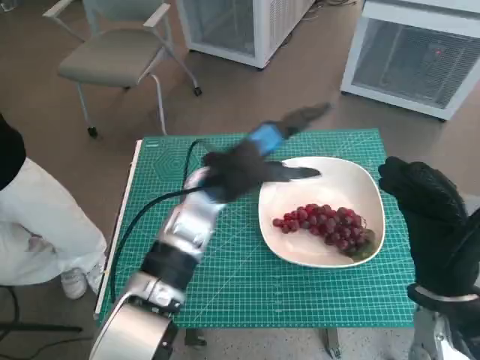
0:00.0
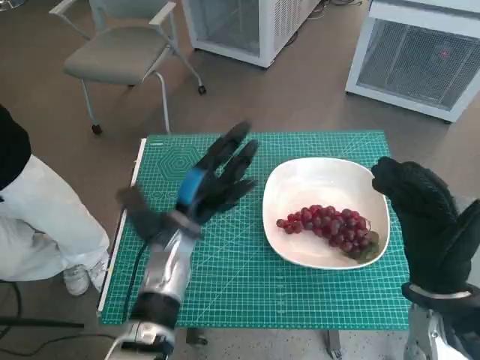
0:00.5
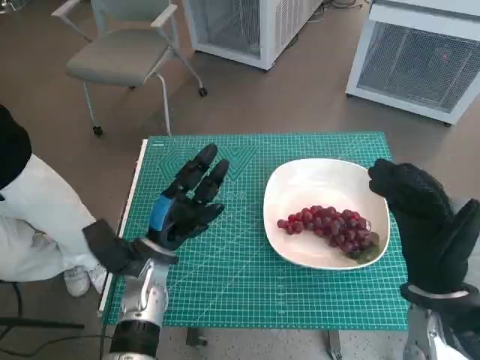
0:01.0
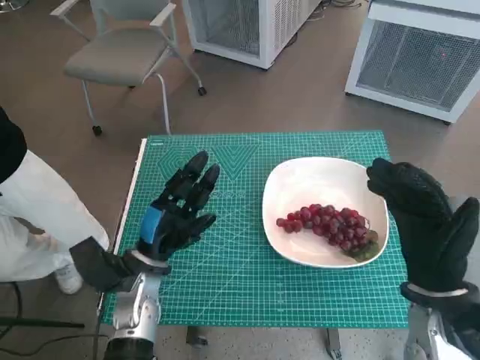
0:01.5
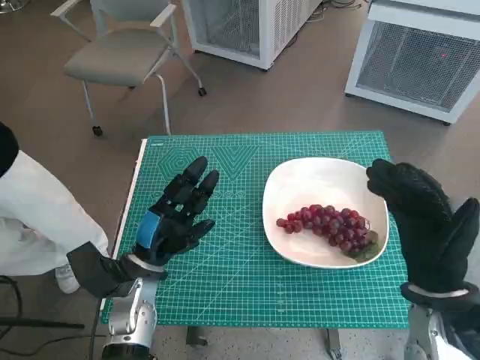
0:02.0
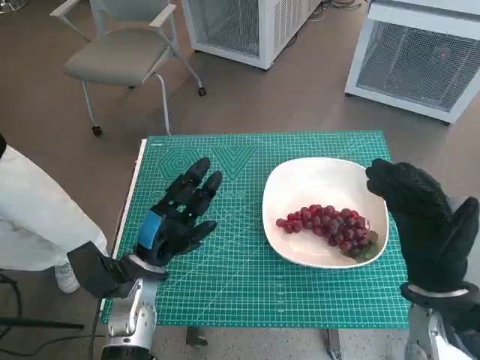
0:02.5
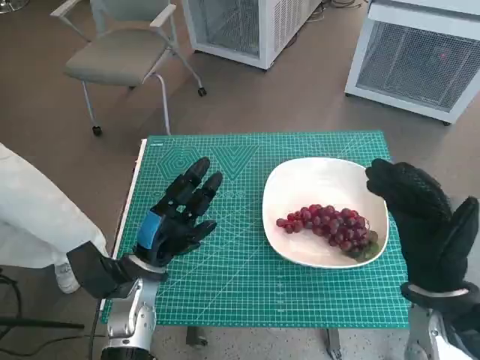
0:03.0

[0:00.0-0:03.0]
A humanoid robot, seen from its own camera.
Task of the whole recording: Pick up the grapes and put them on the plate.
0:00.0 to 0:01.5: The left hand is displaced downward, to the left and backward by approximately 20 cm.
0:01.5 to 0:03.0: Both hands stay about where they are.

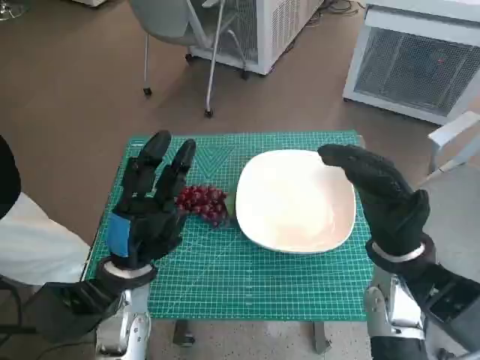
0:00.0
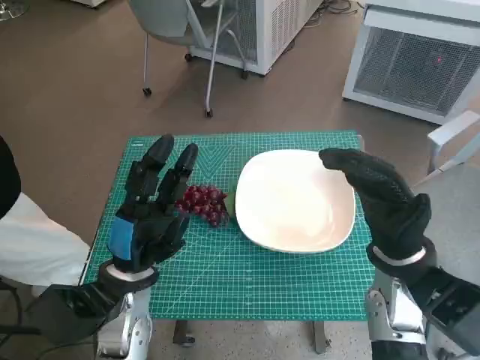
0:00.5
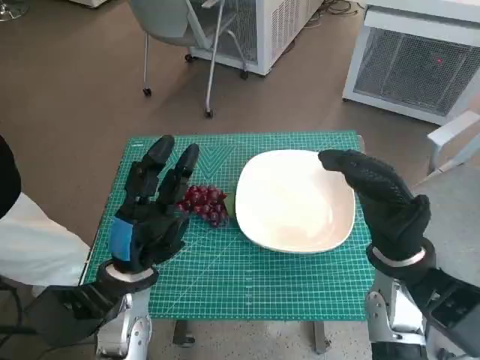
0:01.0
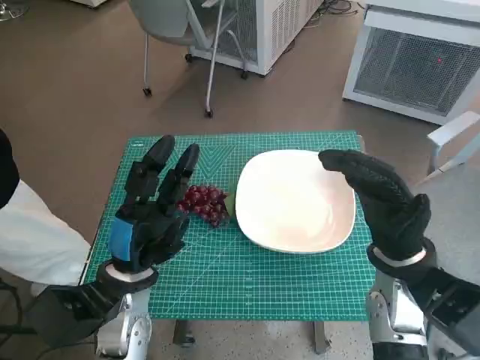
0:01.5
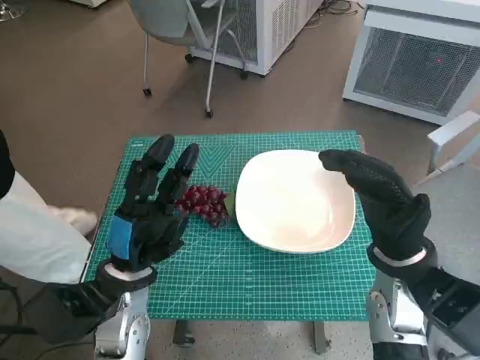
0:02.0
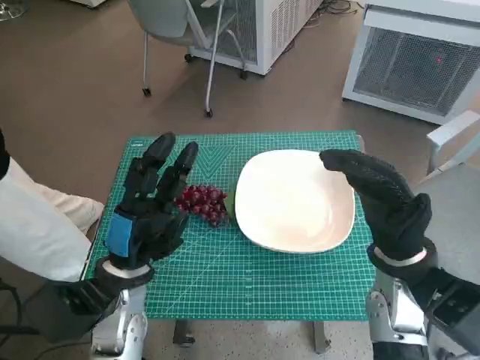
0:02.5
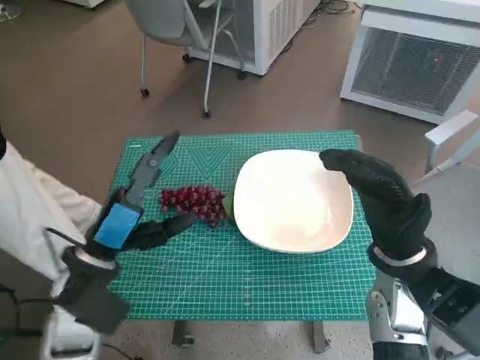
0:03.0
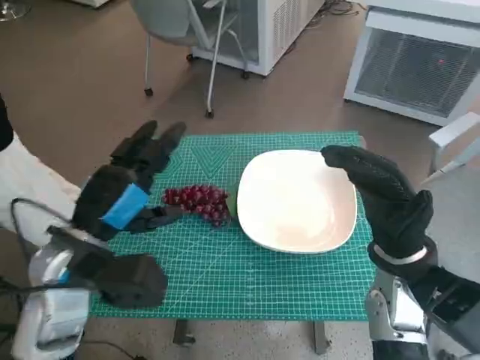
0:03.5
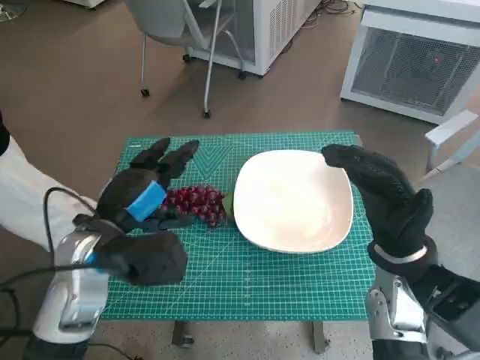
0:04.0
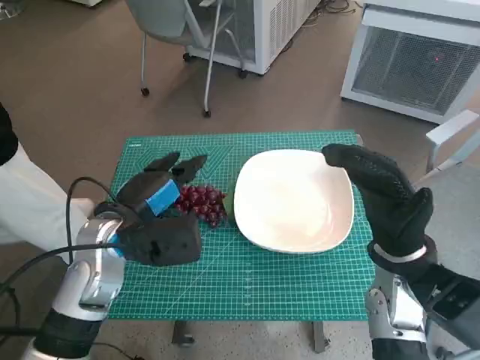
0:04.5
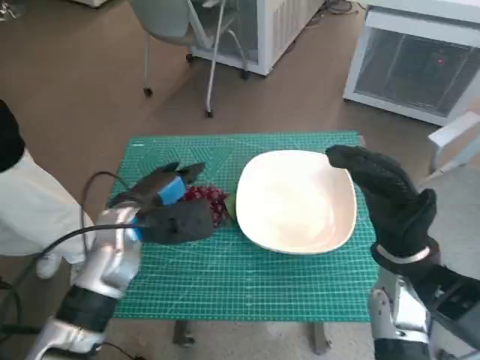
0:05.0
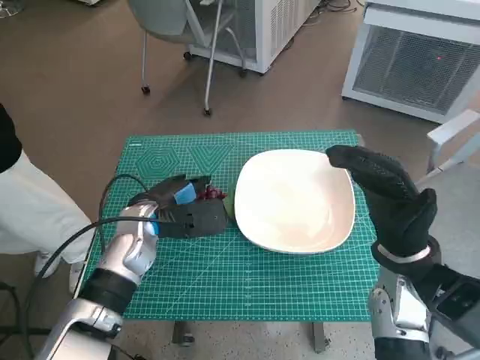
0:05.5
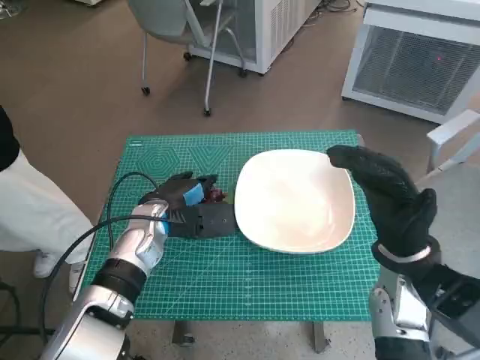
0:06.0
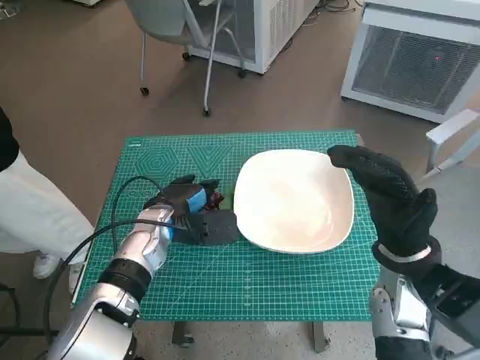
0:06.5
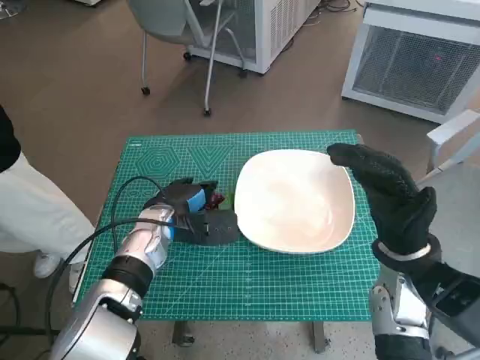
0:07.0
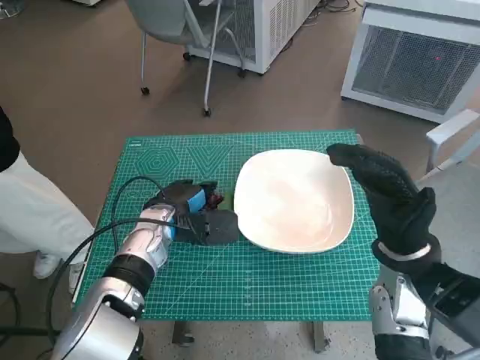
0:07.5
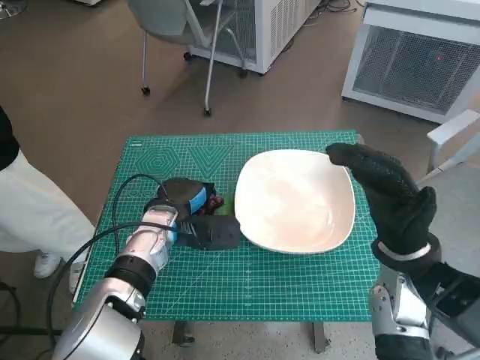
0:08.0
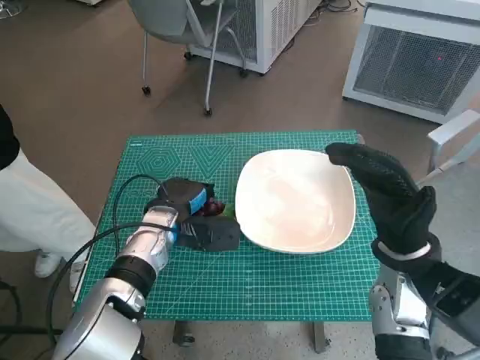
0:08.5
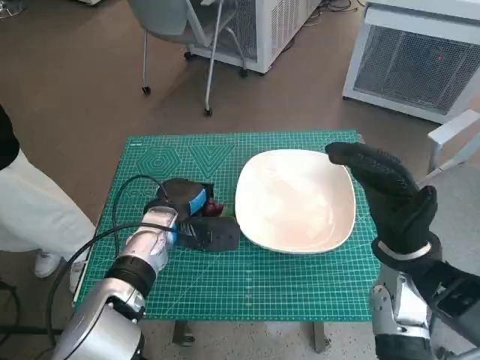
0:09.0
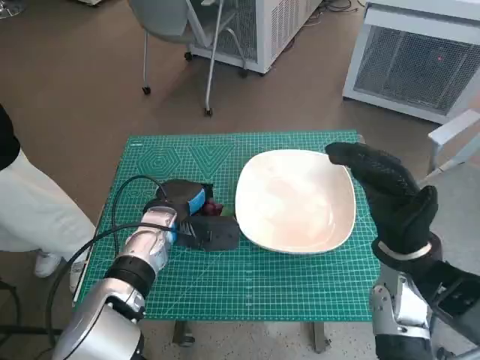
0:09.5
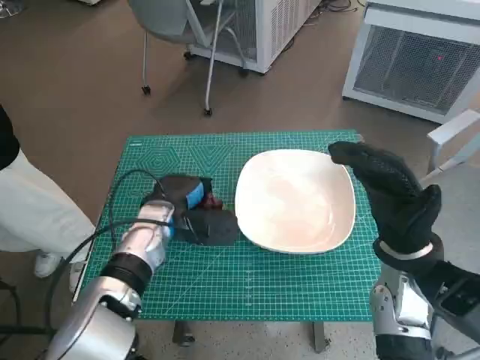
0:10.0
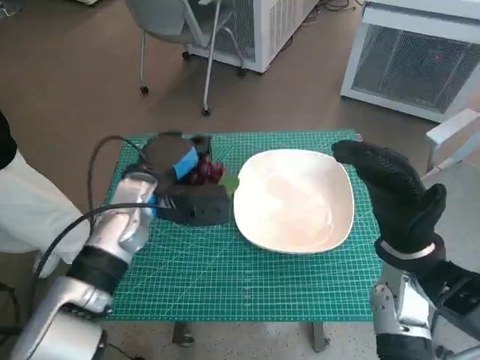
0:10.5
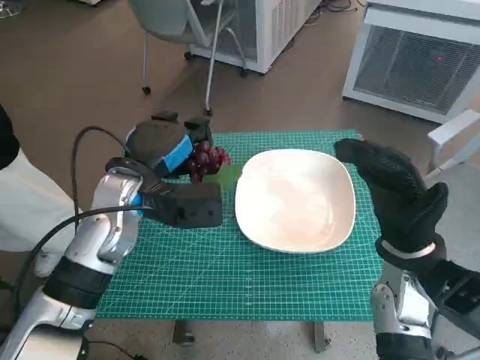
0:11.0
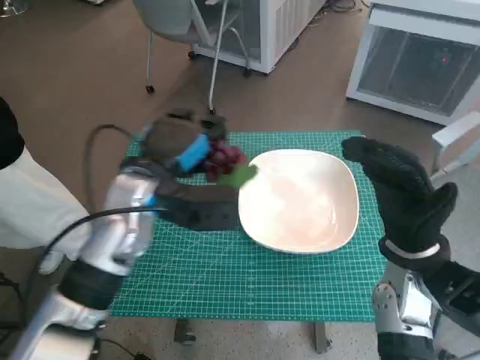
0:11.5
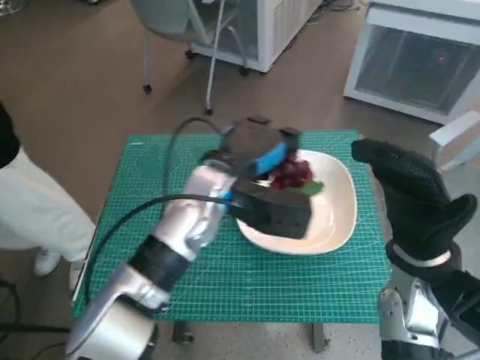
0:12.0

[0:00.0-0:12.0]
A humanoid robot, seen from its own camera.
Task of the whole recording: Pick up the grapes and put them on the plate.
Step, 0:00.0 to 0:08.0: Grasp the grapes with left hand.
0:02.0 to 0:04.0: The left hand moves upward, roughly 5 cm.
0:04.0 to 0:06.0: The left hand heads forward and downward, covering roughly 10 cm.
0:06.0 to 0:08.0: The hands make only small movements.
0:08.0 to 0:10.0: Both hands stay about where they are.
0:10.0 to 0:12.0: The left hand is displaced upward and to the right by roughly 15 cm.

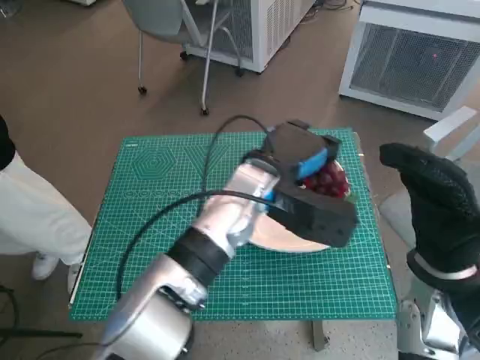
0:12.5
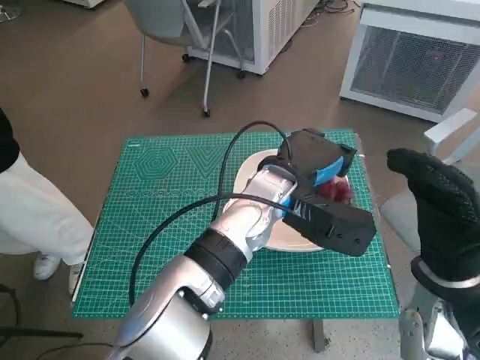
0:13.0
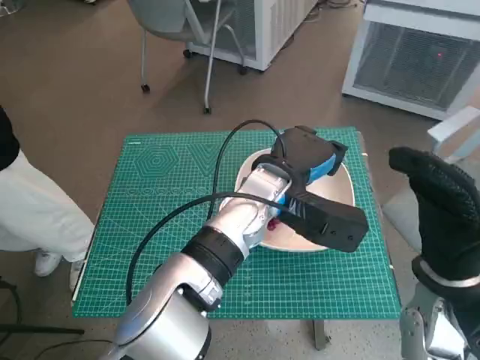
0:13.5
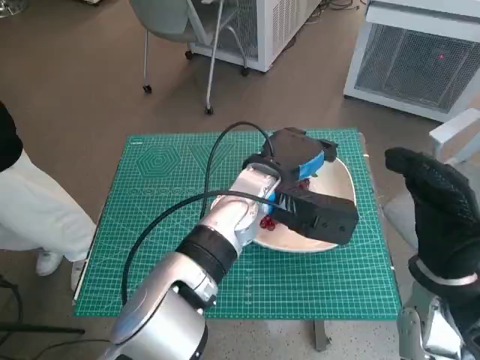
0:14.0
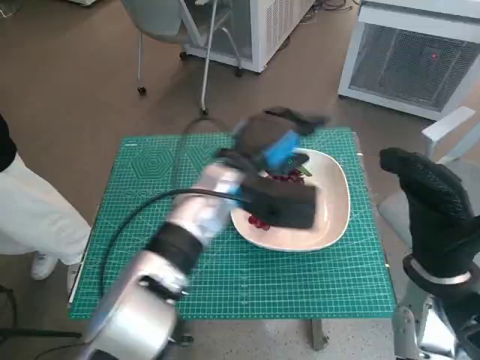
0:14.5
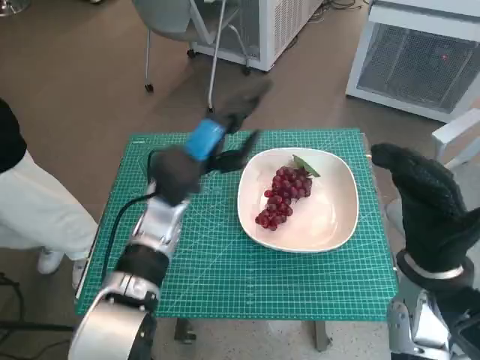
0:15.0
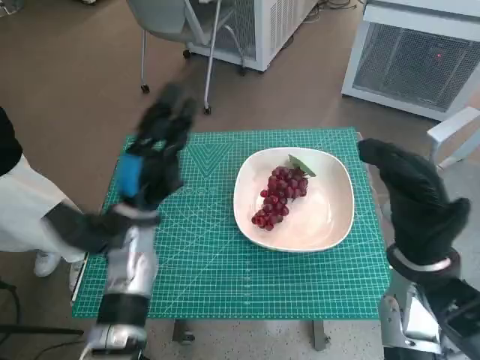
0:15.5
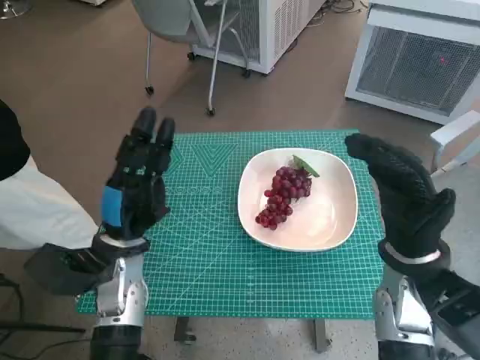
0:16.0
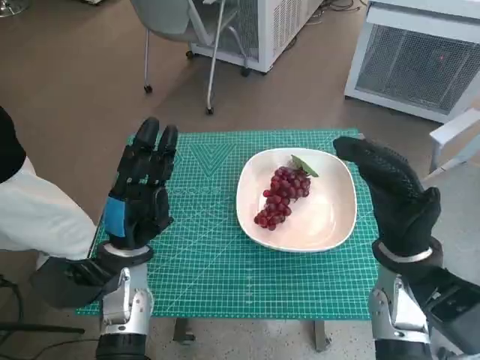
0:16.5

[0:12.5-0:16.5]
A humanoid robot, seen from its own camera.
Task of the whole recording: Pick up the grapes and put them on the plate.
0:12.5 to 0:14.5: There are only small adjustments of the hands.
0:14.5 to 0:16.5: The left hand goes some 20 cm to the left, backward and downward.

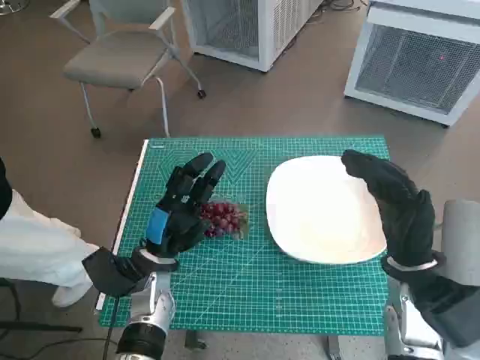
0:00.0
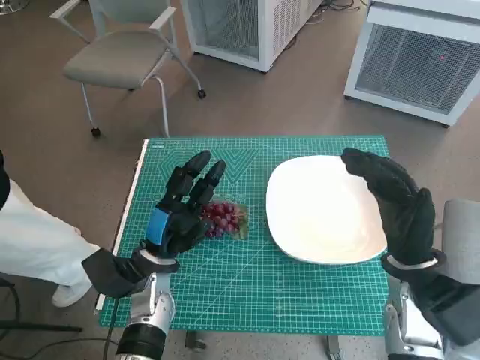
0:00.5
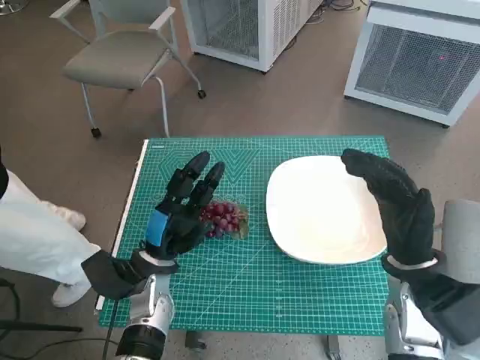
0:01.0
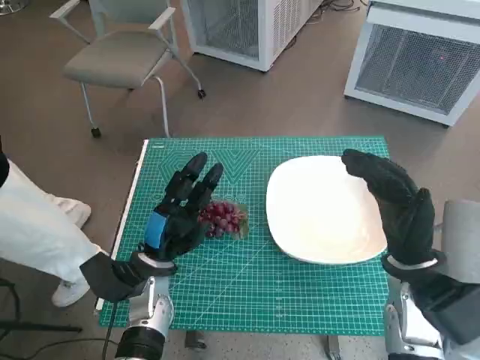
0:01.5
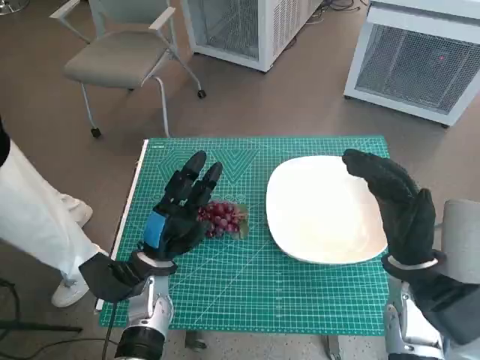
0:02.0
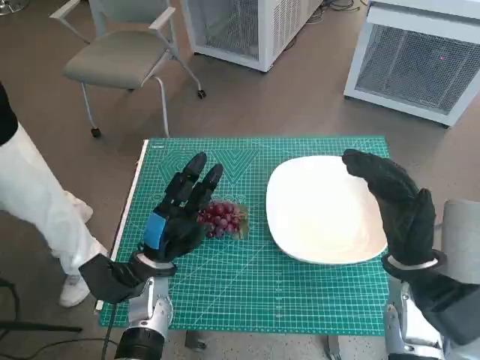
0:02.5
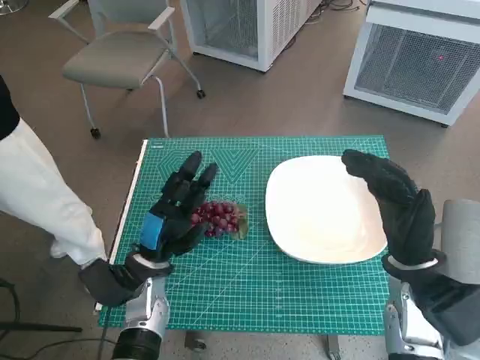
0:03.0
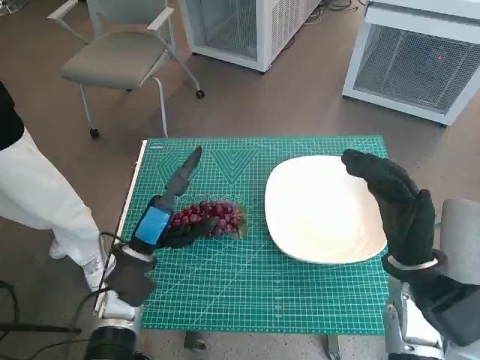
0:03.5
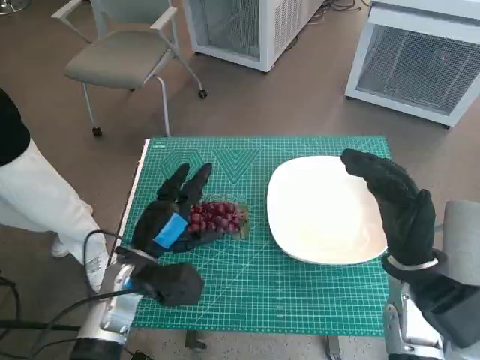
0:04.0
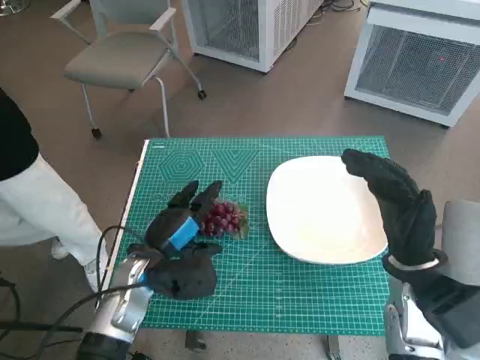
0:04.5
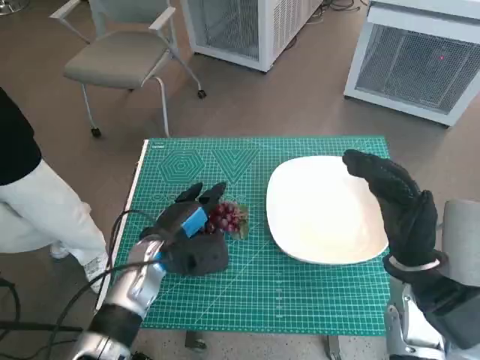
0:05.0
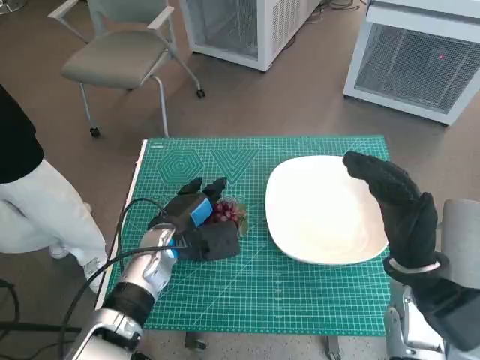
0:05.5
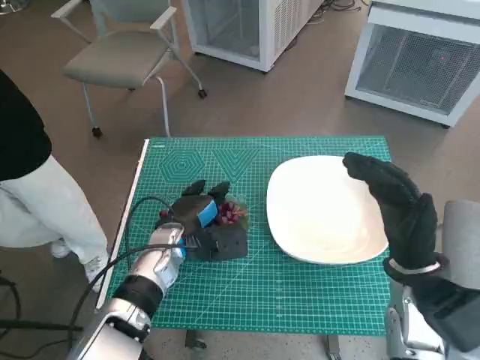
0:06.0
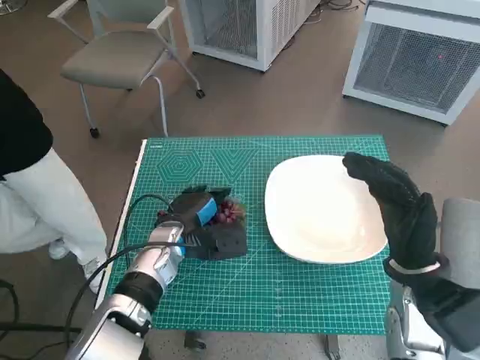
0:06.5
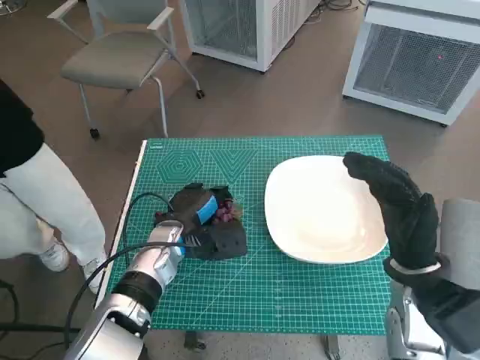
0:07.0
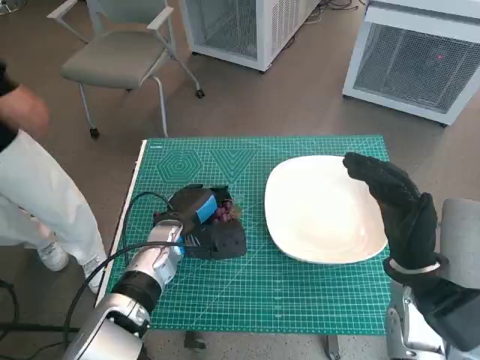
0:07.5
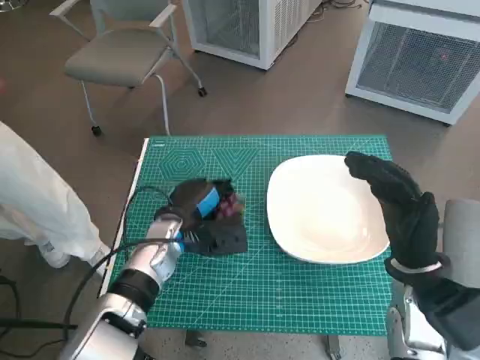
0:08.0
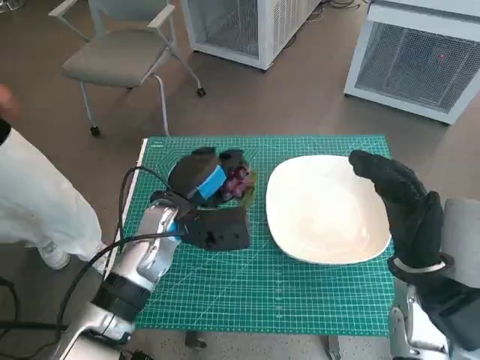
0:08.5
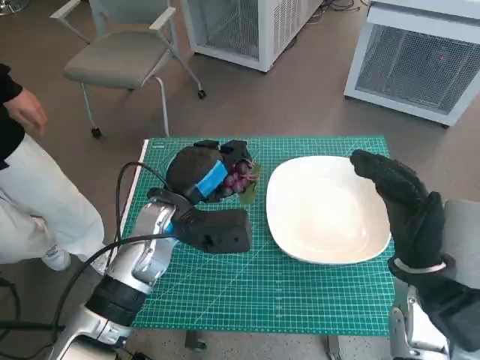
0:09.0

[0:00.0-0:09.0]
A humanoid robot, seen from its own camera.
Task of the whole recording: Pick up the grapes and put them on the plate.
Step, 0:00.0 to 0:07.5: Grasp the grapes with left hand.
0:04.5 to 0:07.0: The left hand shifts roughly 5 cm forward.
0:07.0 to 0:09.0: The left hand is displaced upward by approximately 10 cm.
